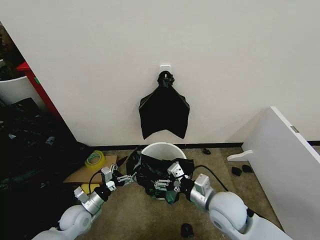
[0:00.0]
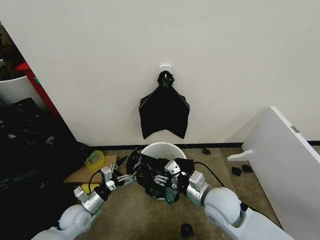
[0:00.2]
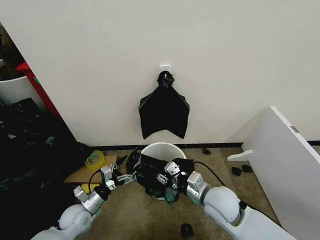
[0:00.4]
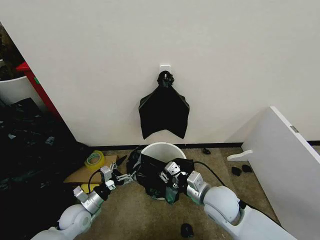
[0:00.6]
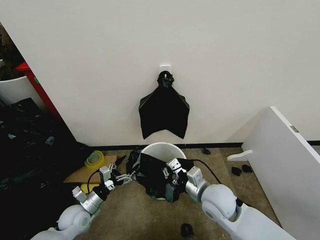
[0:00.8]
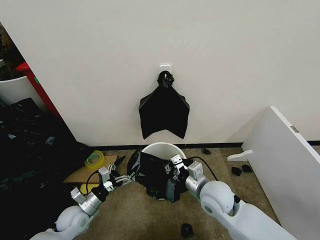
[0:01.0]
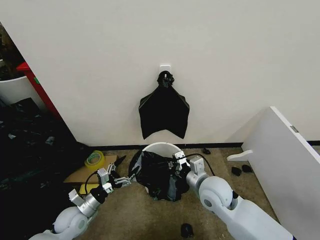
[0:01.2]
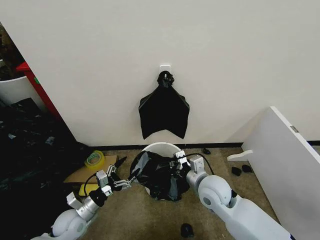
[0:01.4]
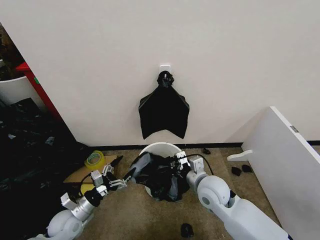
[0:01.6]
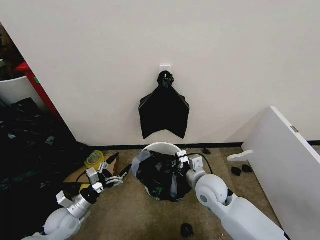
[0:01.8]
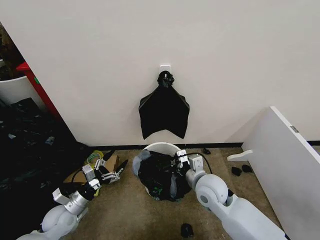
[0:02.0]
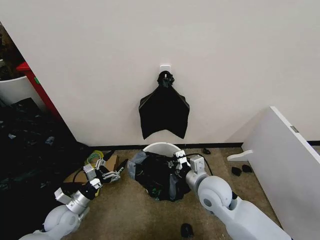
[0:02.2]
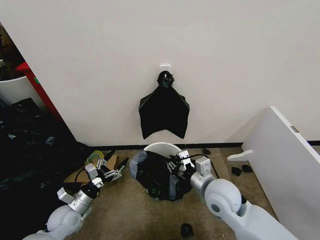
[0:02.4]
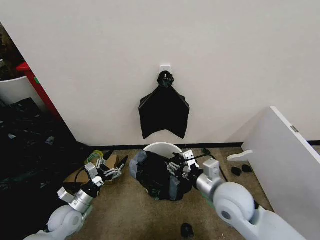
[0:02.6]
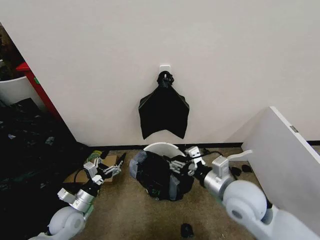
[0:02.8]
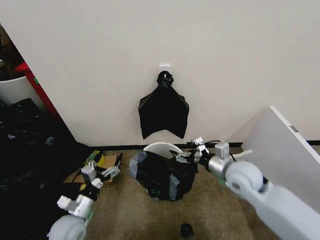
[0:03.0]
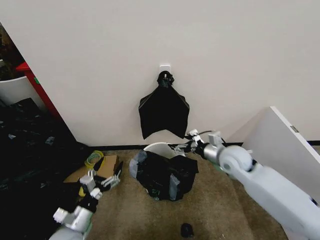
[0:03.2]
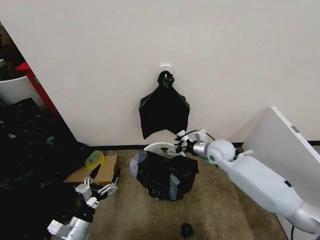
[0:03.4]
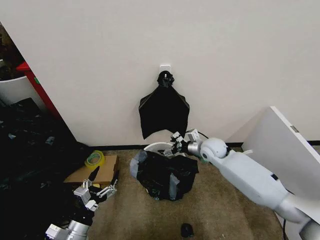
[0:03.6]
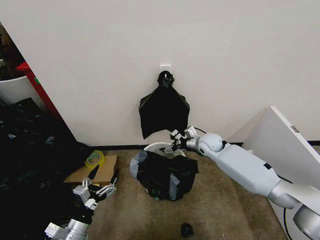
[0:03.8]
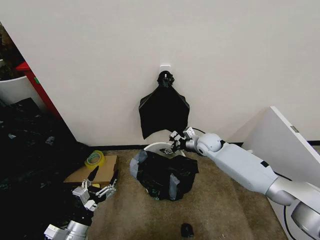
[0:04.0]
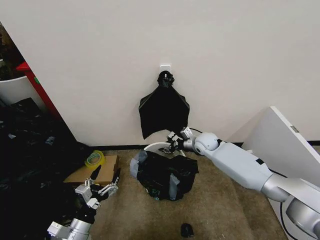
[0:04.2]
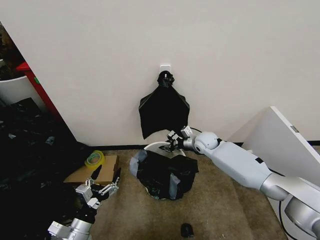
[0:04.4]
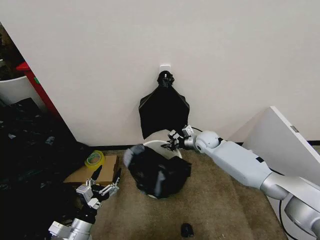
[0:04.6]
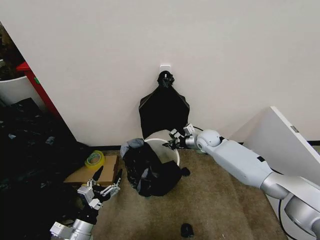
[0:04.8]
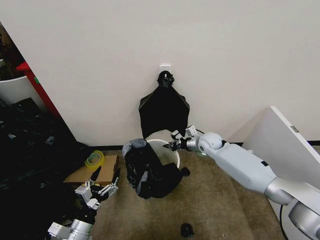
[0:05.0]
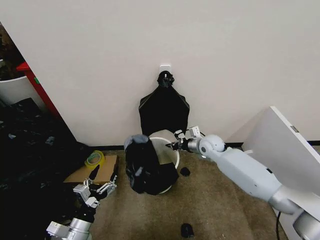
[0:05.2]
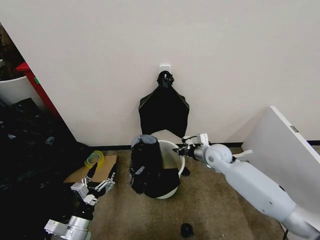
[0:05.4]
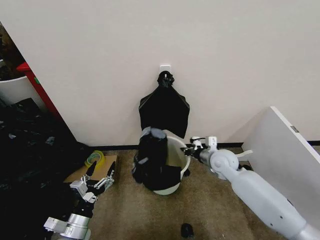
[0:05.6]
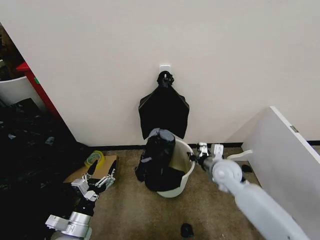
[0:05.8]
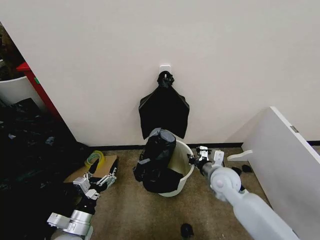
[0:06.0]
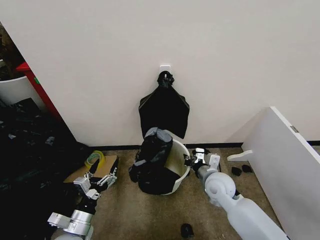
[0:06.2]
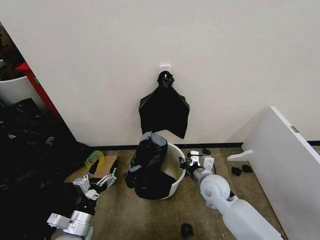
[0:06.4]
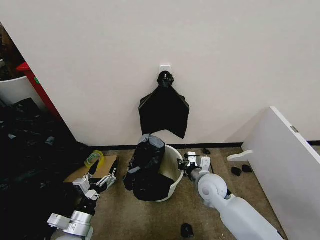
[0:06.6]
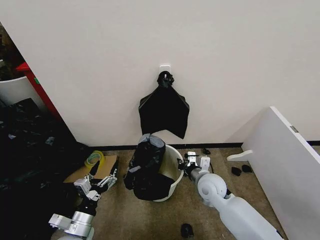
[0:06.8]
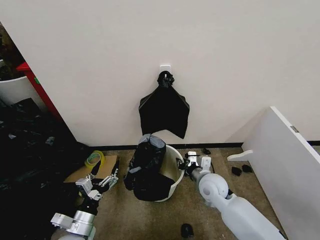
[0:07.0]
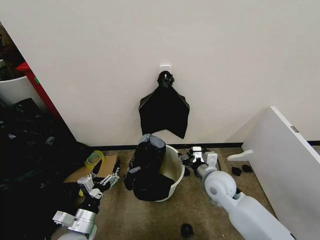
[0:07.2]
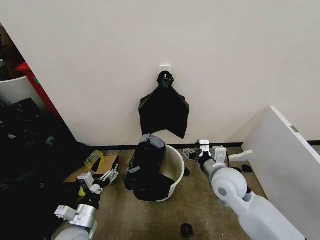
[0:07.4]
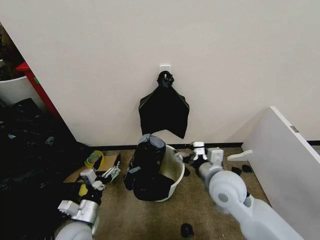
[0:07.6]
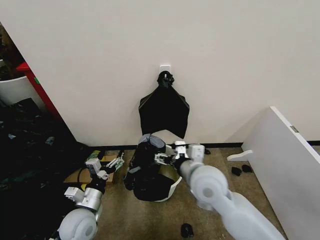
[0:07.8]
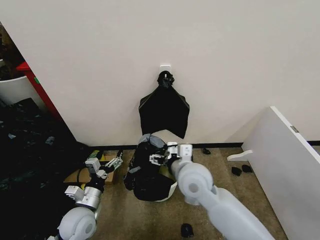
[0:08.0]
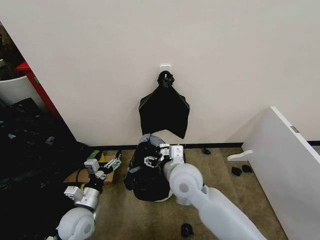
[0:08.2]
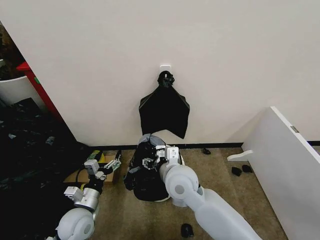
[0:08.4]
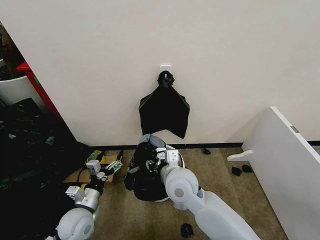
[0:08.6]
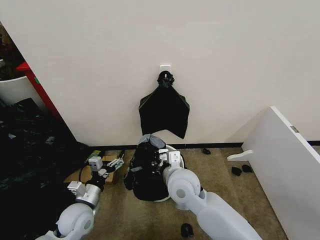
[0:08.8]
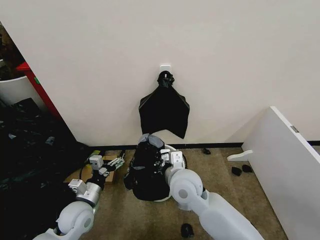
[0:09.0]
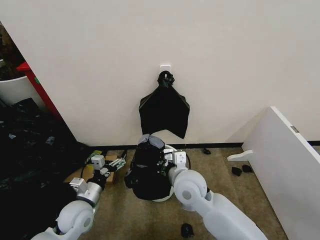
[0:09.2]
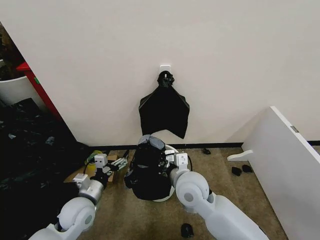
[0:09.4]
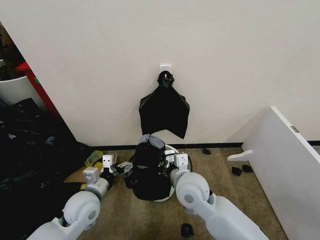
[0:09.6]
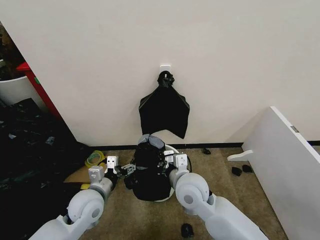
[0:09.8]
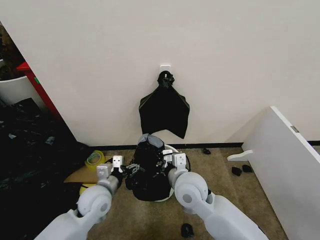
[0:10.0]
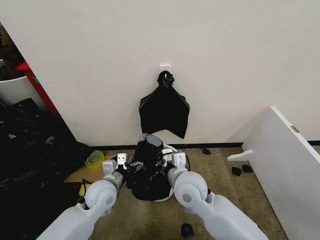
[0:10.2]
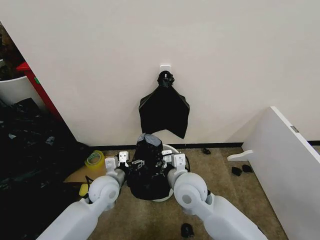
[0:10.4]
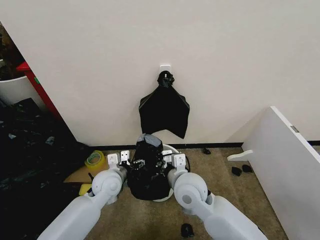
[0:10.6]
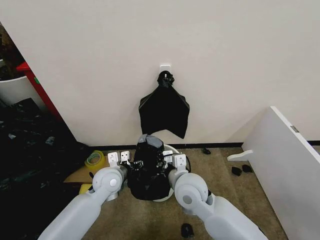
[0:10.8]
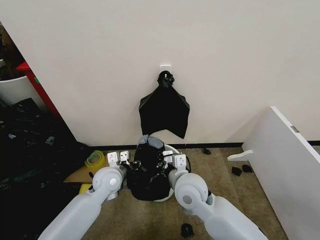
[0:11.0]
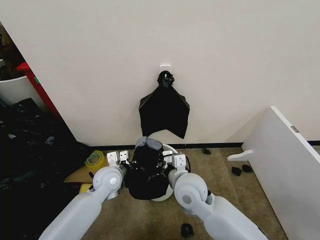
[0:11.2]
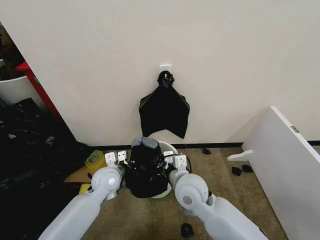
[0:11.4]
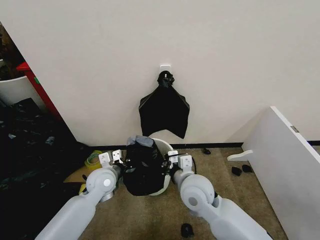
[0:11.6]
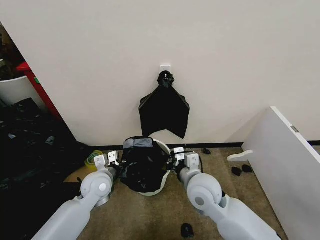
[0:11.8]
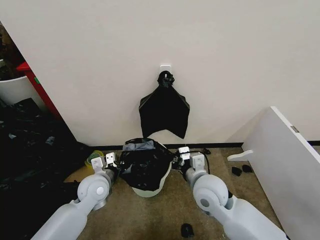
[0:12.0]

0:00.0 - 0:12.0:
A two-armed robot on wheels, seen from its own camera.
Task of the whole recording: Place the garbage bag over the trash bin.
0:00.0 - 0:01.6: The right gripper heads forward, covering approximately 5 cm, and closes up.
0:01.6 - 0:03.0: The right gripper shifts some 10 cm to the right and upward, and opens.
0:03.0 - 0:04.4: The left gripper goes some 10 cm backward; the right gripper shifts approximately 20 cm forward, and closes.
0:04.4 - 0:06.0: The right gripper travels backward by roughly 20 cm, and closes.
0:06.0 - 0:07.6: The right gripper heads upward and backward, covering roughly 10 cm, and opens its fingers.
0:07.6 - 0:09.0: The left gripper heads forward, covering approximately 5 cm; the right gripper shifts roughly 10 cm to the left, and closes its fingers.
0:09.0 - 0:10.4: The left gripper is displaced to the right and forward by approximately 10 cm.
0:10.4 - 0:12.0: The right gripper moves to the right, about 5 cm, while the left gripper closes its fingers.

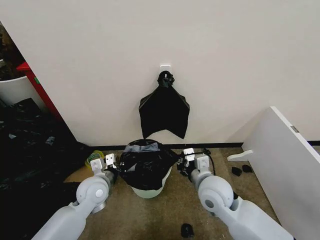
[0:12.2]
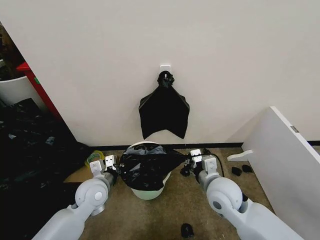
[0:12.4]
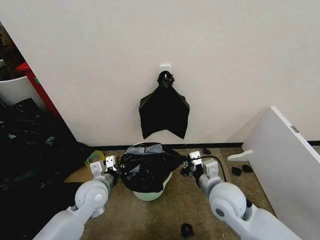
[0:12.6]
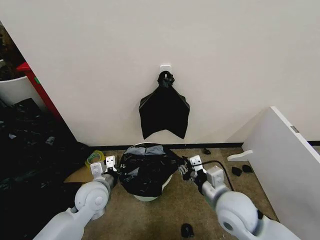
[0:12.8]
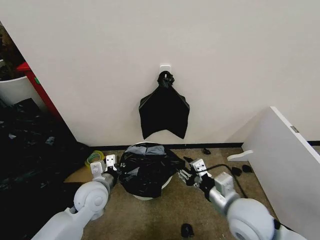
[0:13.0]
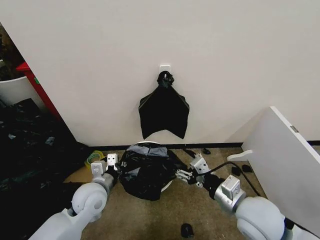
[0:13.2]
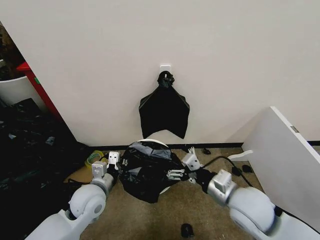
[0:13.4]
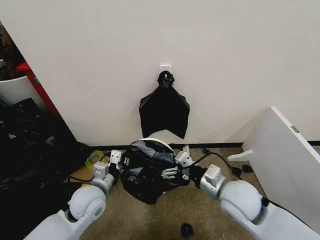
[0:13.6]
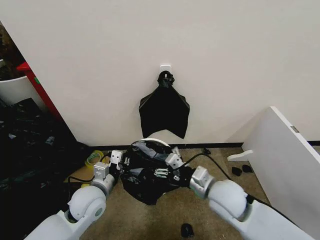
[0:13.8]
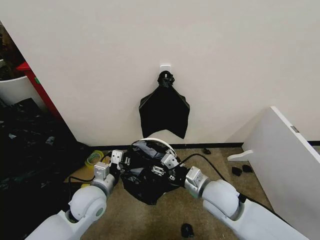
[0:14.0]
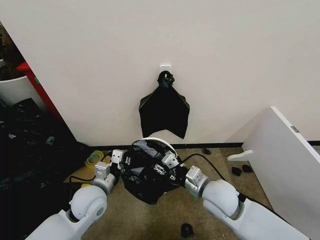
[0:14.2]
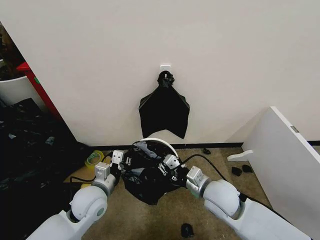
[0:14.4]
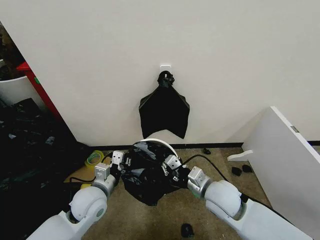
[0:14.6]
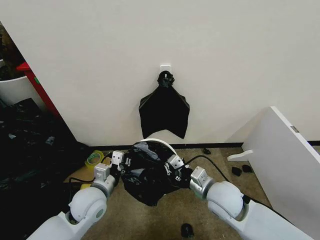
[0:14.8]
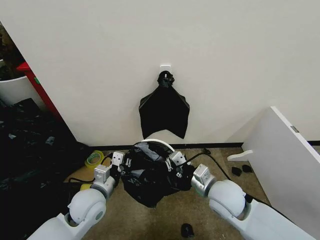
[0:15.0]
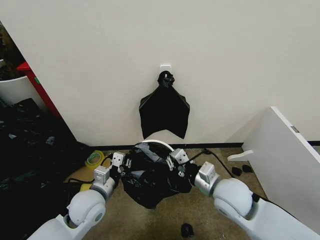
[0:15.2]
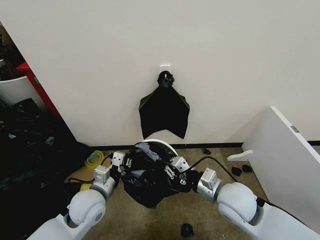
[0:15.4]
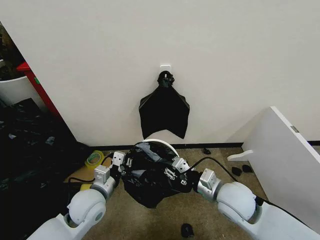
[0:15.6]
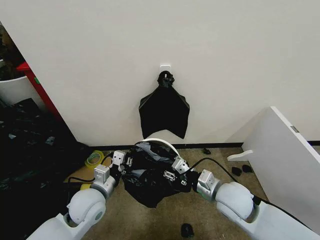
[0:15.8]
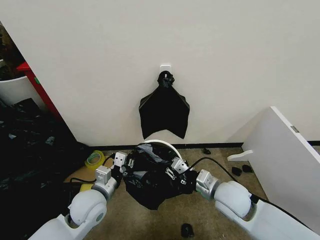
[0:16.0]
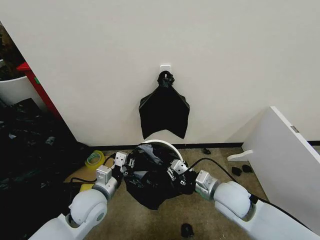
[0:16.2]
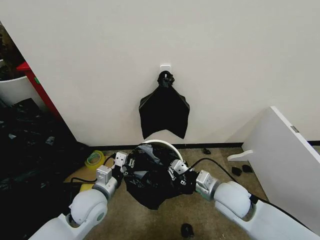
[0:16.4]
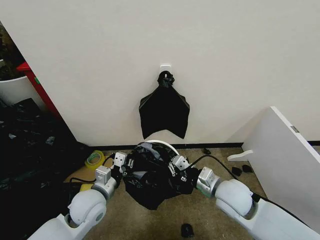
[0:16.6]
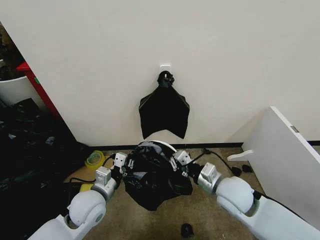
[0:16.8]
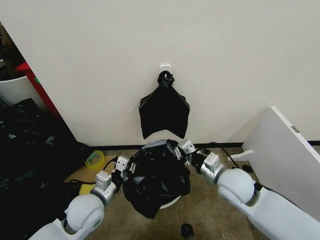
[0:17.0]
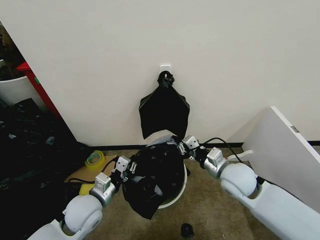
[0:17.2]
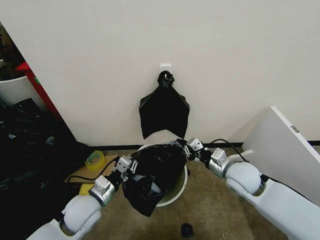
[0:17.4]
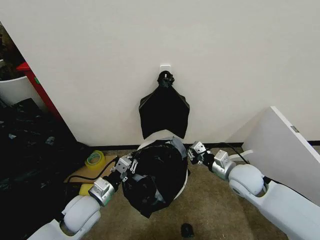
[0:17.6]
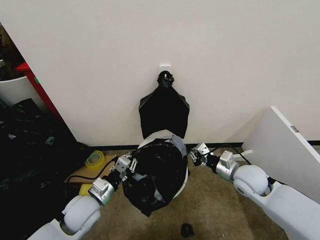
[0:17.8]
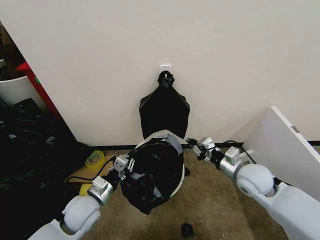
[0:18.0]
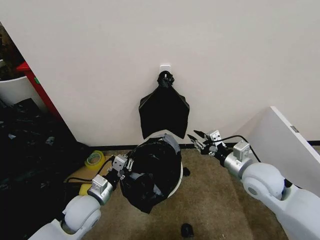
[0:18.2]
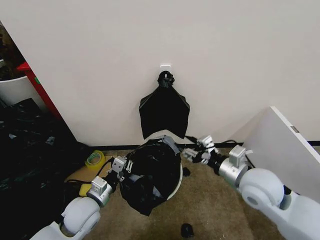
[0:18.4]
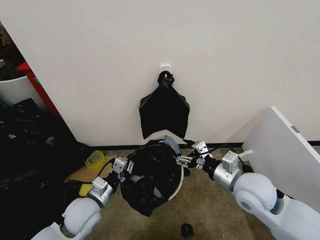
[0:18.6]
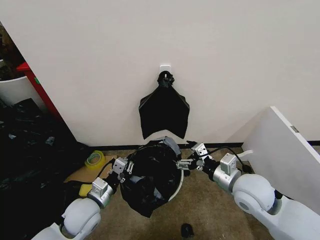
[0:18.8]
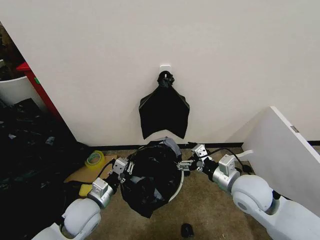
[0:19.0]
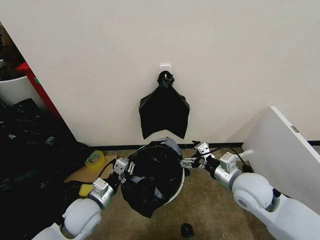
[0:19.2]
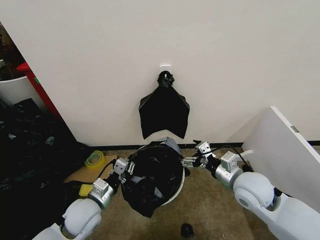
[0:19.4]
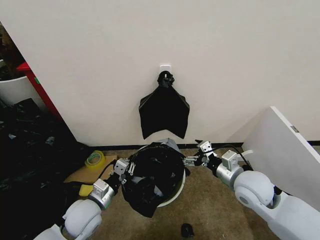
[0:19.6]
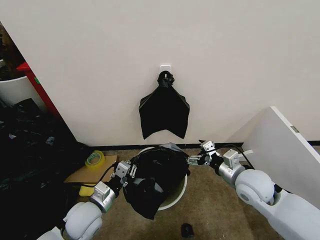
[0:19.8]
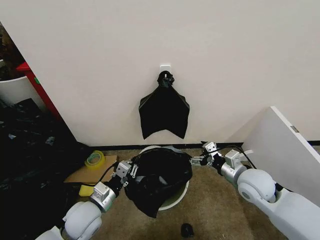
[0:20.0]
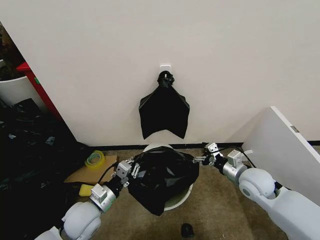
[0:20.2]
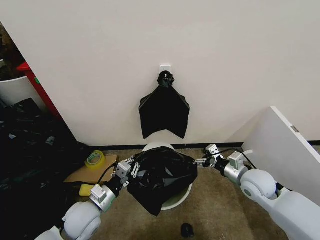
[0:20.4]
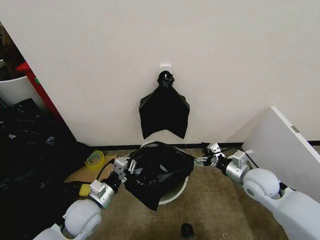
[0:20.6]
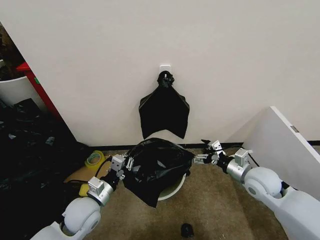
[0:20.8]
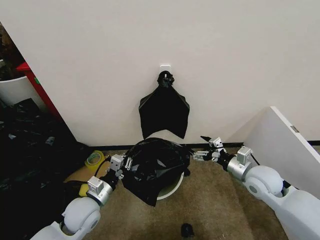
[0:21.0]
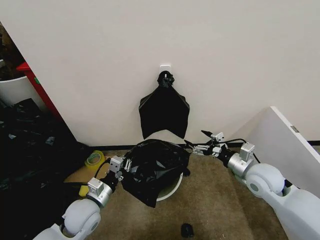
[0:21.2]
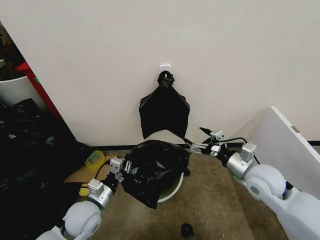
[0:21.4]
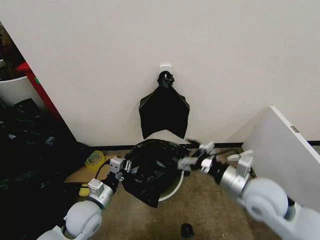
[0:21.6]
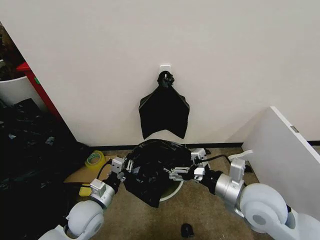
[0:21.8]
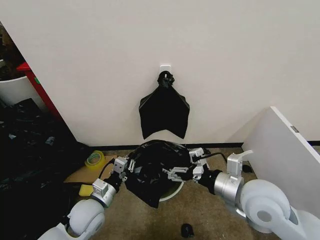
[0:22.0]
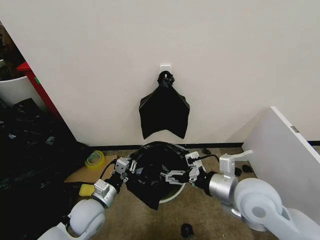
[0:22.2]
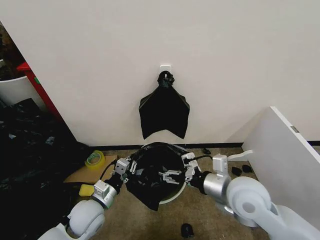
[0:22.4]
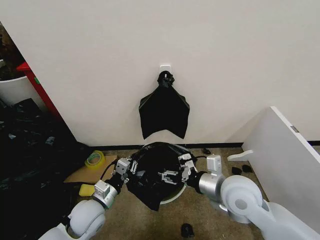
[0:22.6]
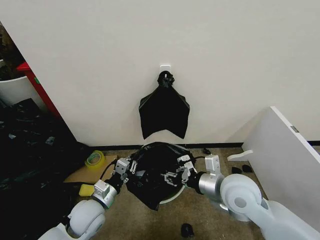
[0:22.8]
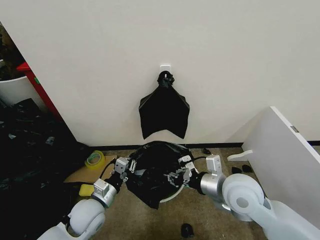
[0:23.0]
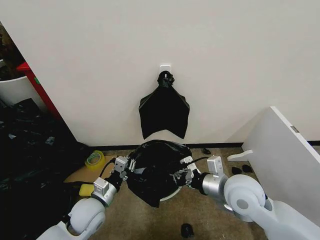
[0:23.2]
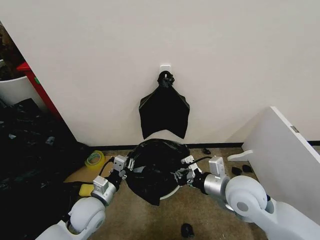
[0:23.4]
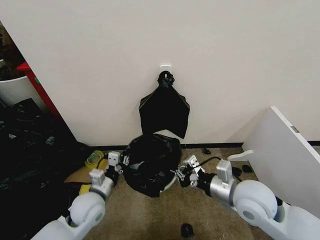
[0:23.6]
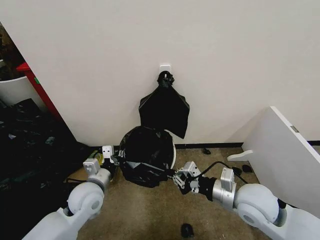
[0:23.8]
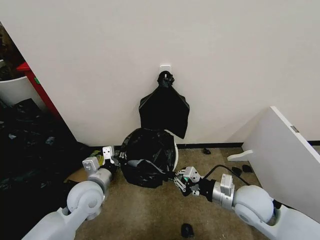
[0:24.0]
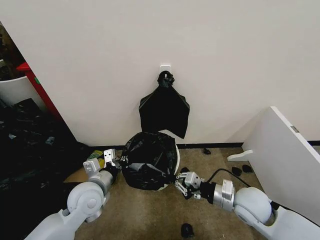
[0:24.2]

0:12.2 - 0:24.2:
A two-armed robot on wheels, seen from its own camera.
Task of the whole recording: Place the garbage bag over the trash bin.
0:12.2 - 0:13.8: The right gripper reaches roughly 10 cm backward, then returns, and opens its fingers.
0:13.8 - 0:15.2: The right gripper closes its fingers.
0:15.2 - 0:16.6: The right gripper opens, then closes again.
0:16.6 - 0:18.2: The right gripper shifts roughly 10 cm to the right and upward.
0:18.2 - 0:19.8: The right gripper opens up.
0:21.2 - 0:22.6: The right gripper travels to the left and backward by about 15 cm, and closes.
0:22.6 - 0:24.2: The left gripper moves upward, some 5 cm; the right gripper shifts roughly 10 cm downward and to the right, and closes.
